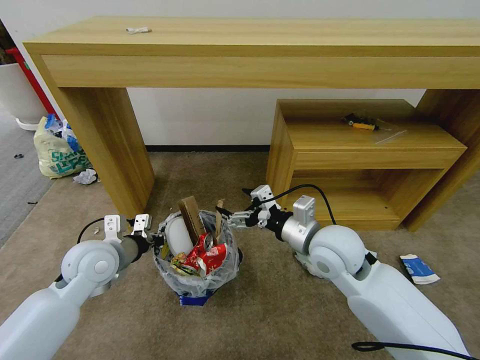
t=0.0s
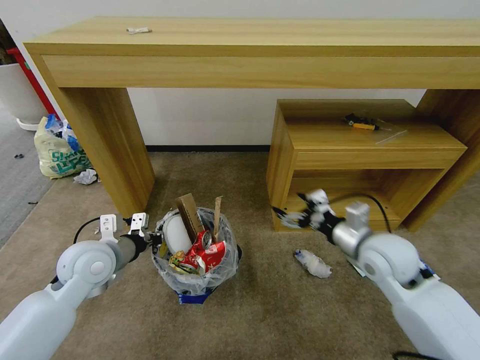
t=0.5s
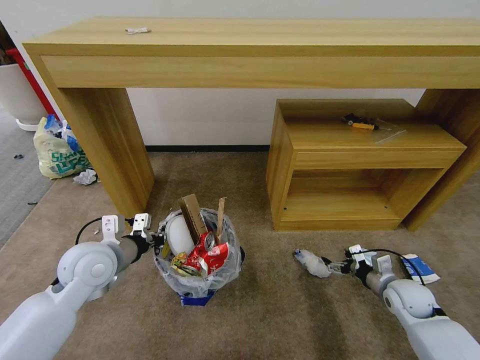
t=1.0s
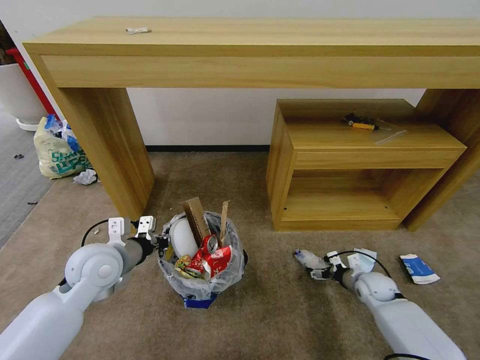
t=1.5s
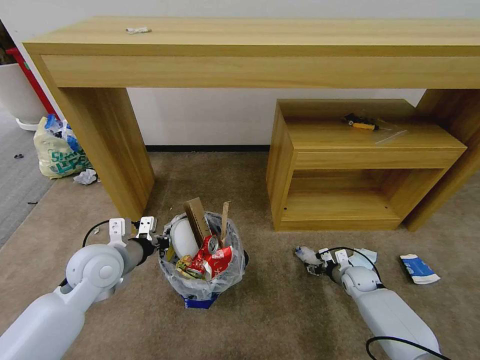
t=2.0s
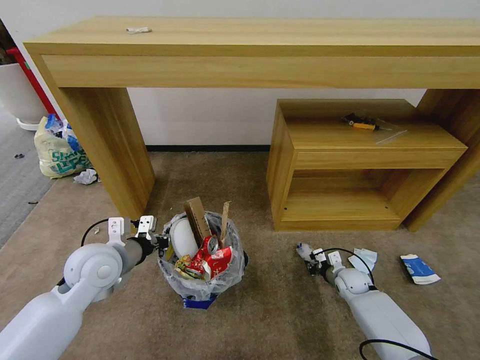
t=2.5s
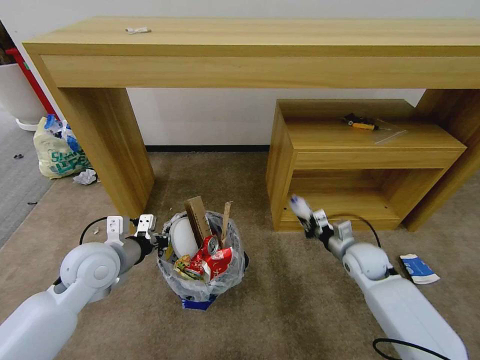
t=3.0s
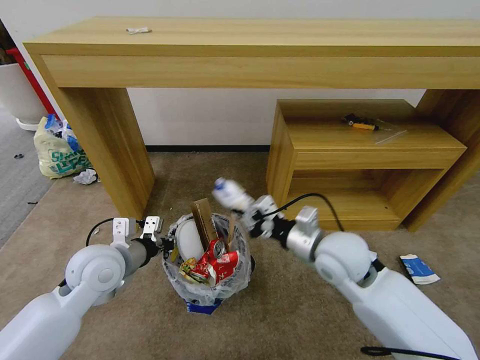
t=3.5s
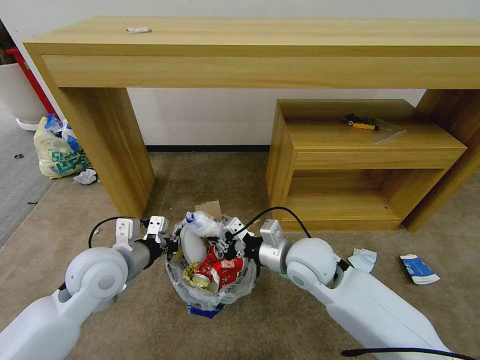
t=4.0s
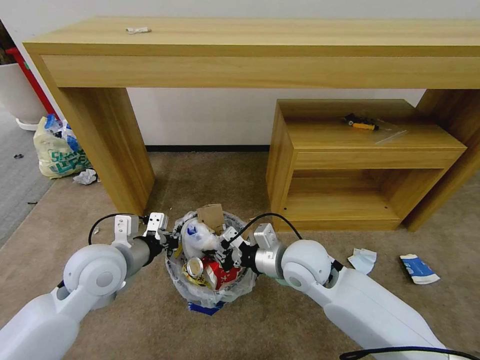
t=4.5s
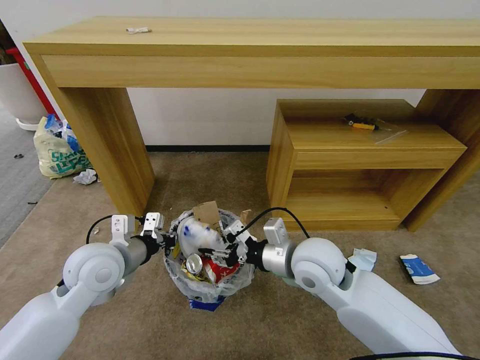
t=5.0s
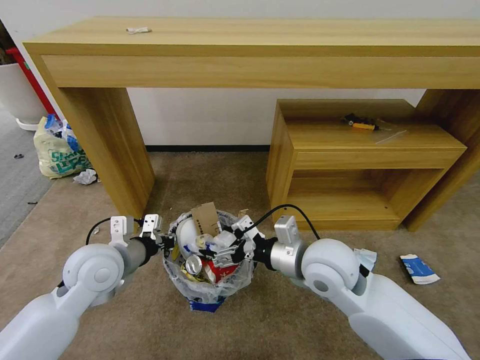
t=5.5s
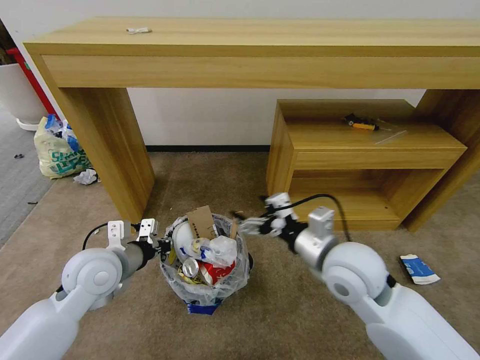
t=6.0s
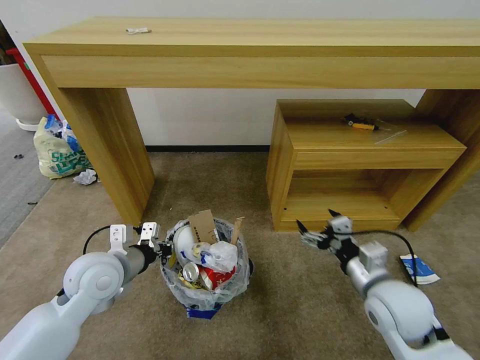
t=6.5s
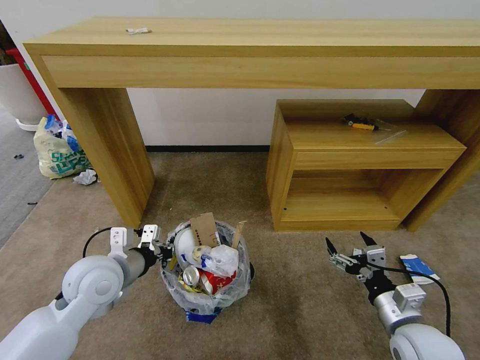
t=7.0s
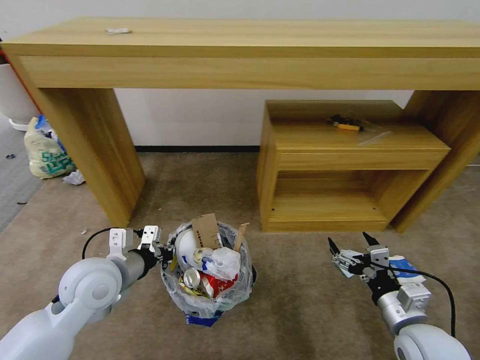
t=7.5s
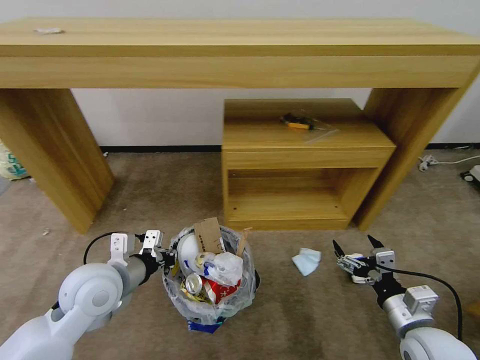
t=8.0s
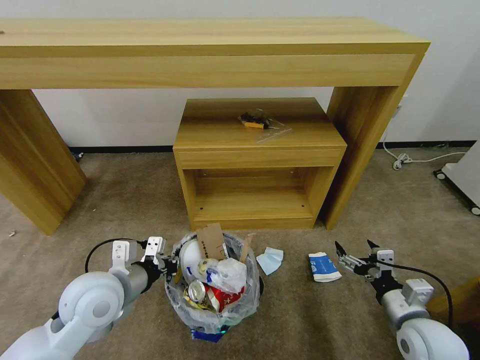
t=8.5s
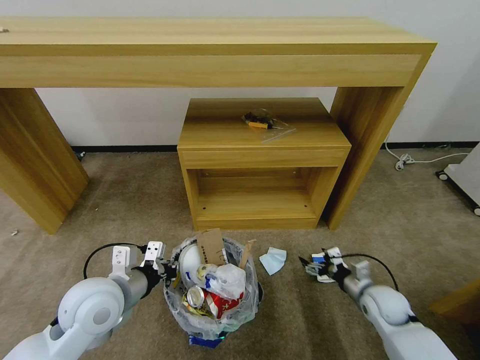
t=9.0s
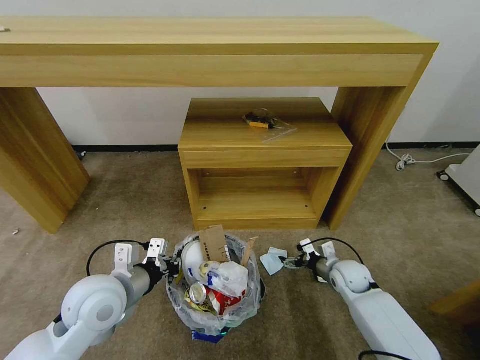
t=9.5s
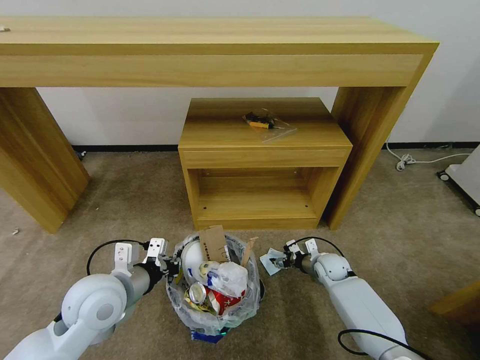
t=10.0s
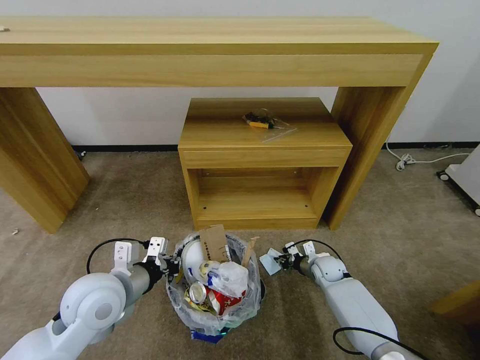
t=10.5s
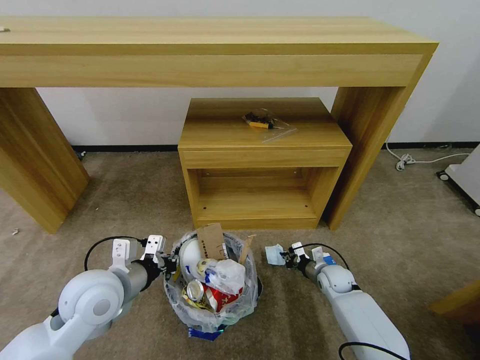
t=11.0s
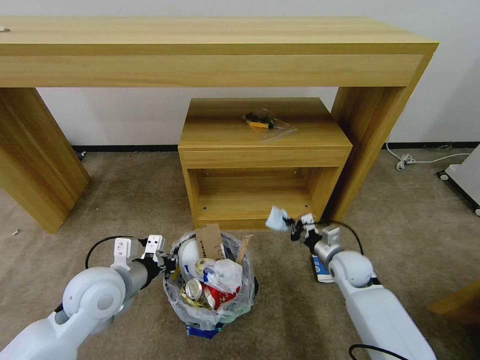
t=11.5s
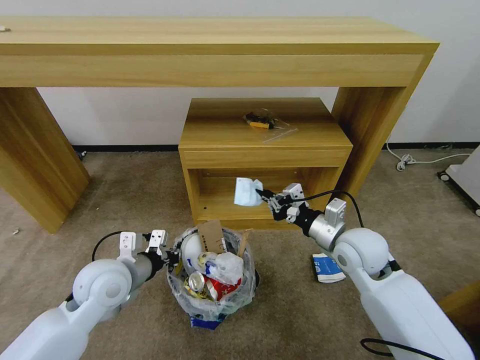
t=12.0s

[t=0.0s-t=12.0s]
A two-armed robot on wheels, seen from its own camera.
Task of the whole recording: Pick up the trash bin and place the garbage on the floor into it.
t=0.0s to t=2.0s: The right gripper shifts roughly 35 cm downward and to the right.
t=2.0s to t=4.0s: The right gripper shifts about 35 cm upward and to the left, and closes.
t=4.0s to t=6.0s: The right gripper is displaced upward and to the right by approximately 5 cm, and opens.
t=6.0s to t=8.0s: The right gripper travels to the right, downward and backward by some 20 cm.
t=8.0s to t=10.0s: The right gripper shifts roughly 30 cm forward and downward.
t=10.0s to t=12.0s: The right gripper shifts some 25 cm upward, and closes.

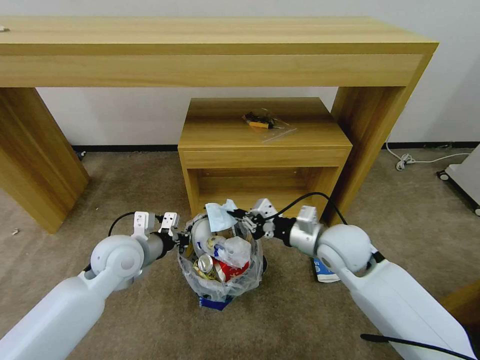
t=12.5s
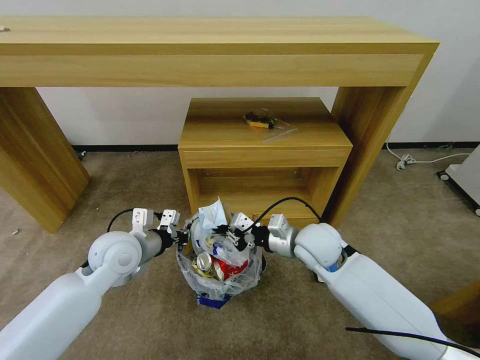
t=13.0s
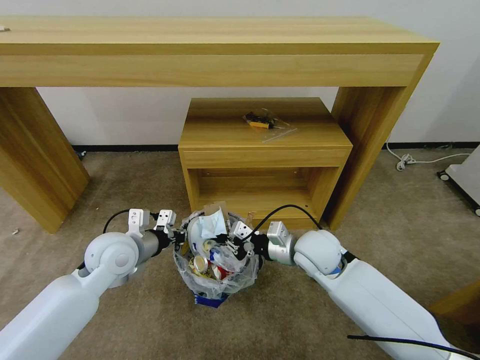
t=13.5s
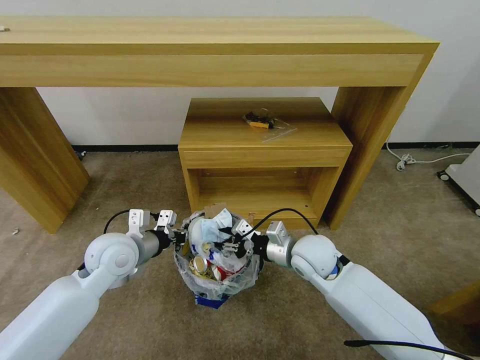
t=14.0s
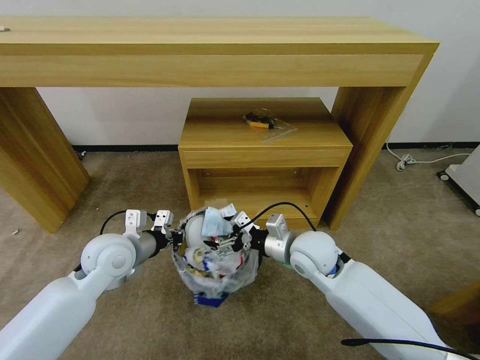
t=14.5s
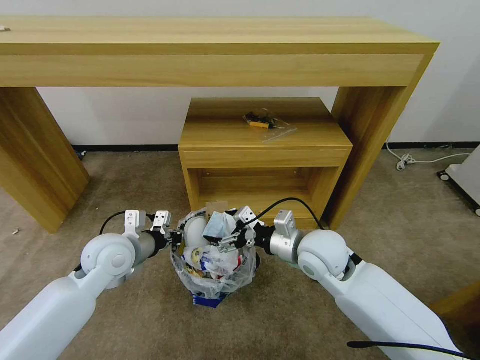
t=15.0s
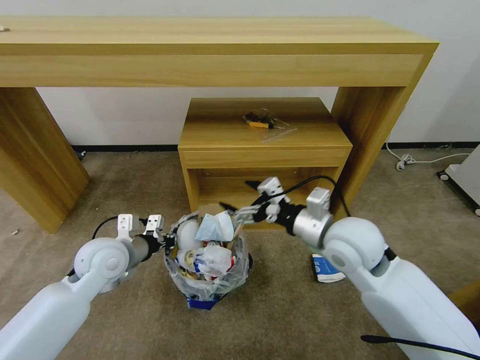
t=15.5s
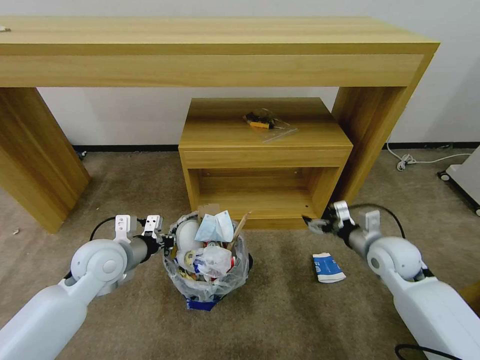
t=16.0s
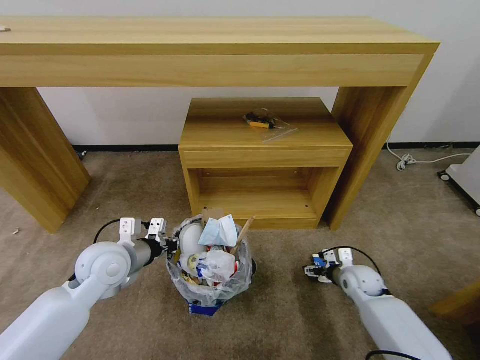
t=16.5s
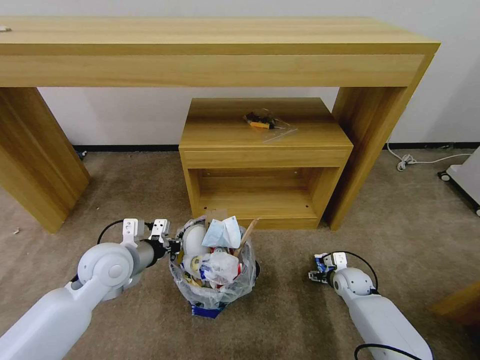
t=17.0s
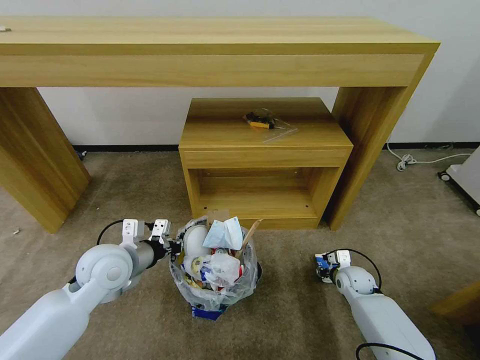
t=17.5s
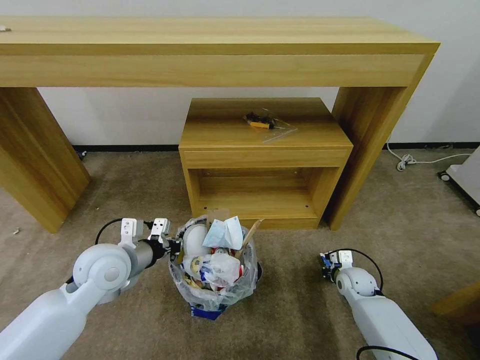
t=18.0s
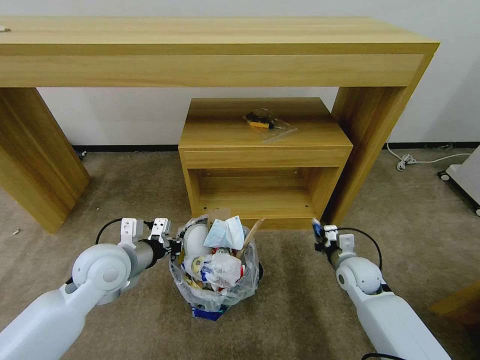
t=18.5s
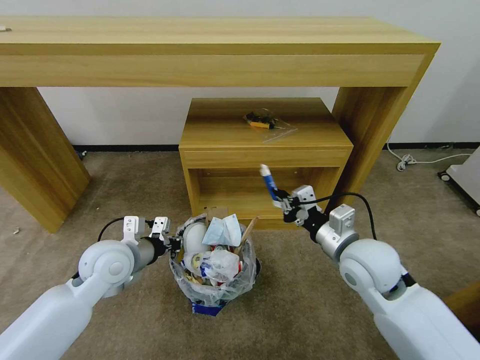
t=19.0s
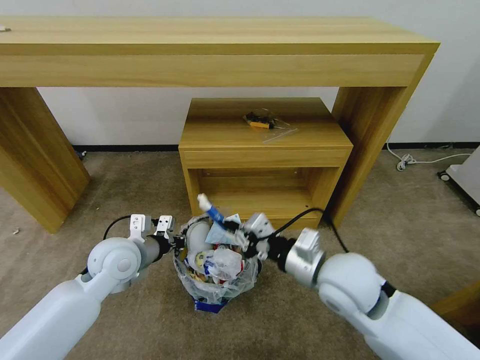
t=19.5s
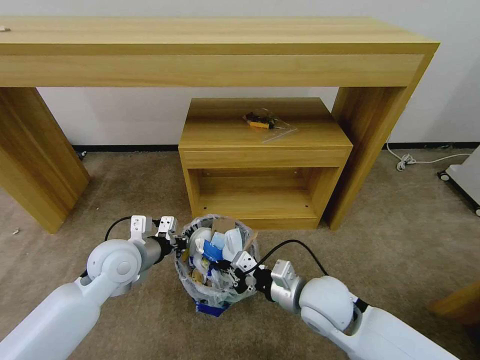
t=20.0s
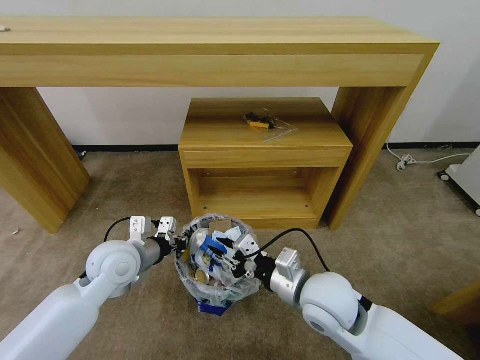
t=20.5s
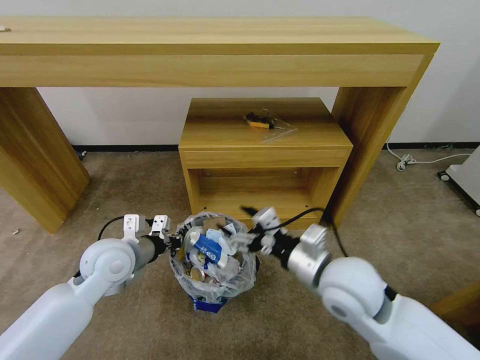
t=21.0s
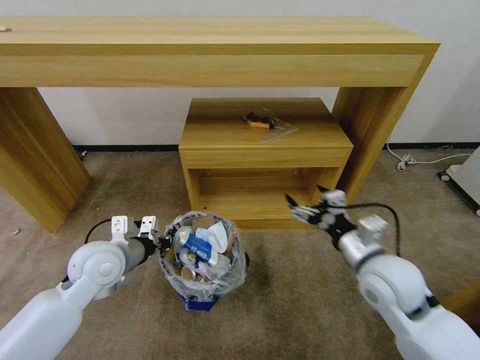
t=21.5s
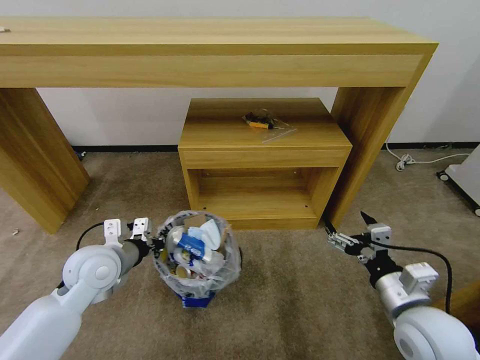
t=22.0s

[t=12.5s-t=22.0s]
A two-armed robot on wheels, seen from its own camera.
Task of the whole recording: Pick up the trash bin and place the garbage on the floor into it.
t=12.5s to t=14.5s: The right gripper is displaced to the left by approximately 5 cm, and opens up.
t=14.5s to t=16.5s: The right gripper moves to the right and downward, roughly 25 cm.
t=16.5s to t=18.0s: The right gripper closes its fingers.
t=18.0s to t=20.0s: The right gripper shifts some 30 cm upward, to the left and backward.
t=20.0s to t=22.0s: The right gripper travels to the right and backward by some 15 cm, and opens up.

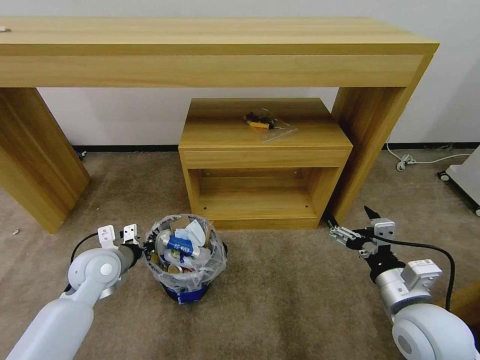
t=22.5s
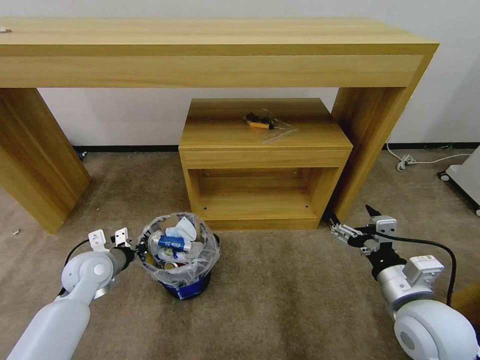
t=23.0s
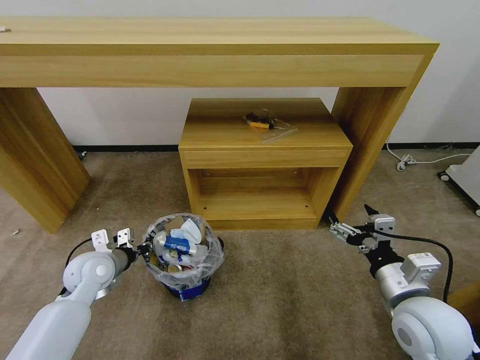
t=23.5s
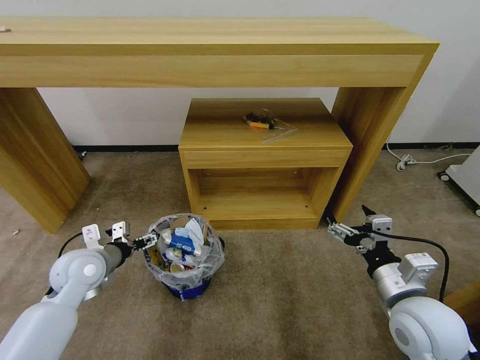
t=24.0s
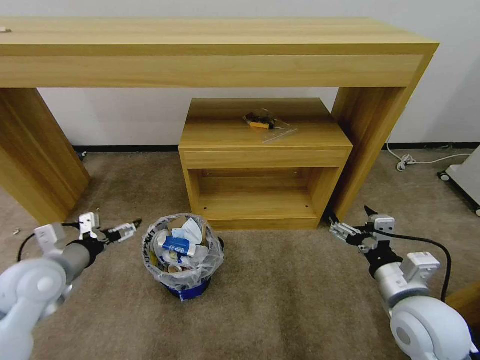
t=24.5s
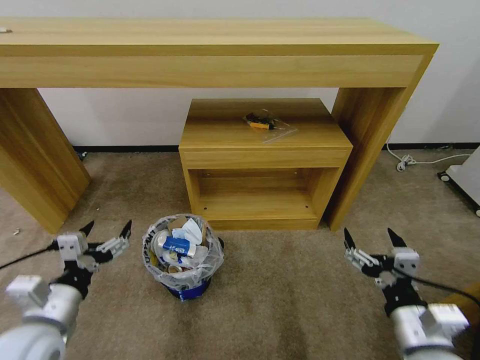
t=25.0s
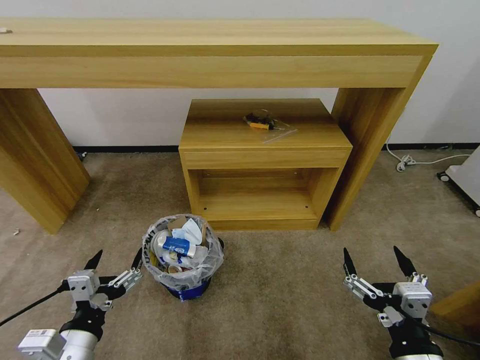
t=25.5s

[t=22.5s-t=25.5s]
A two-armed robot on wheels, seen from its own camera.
Task of the whole recording: Pick up the trash bin and place the garbage on the floor into it.
t=22.5s to t=24.0s: The left gripper opens.
t=24.0s to t=25.5s: The right gripper moves backward, approximately 15 cm, while the left gripper shifts about 20 cm backward.
